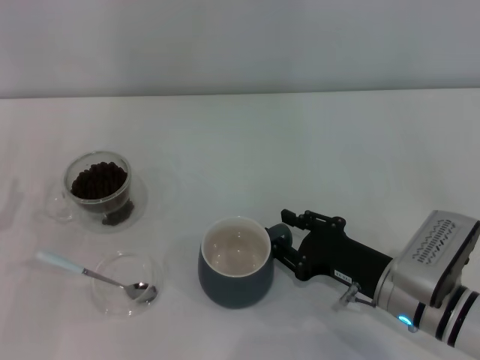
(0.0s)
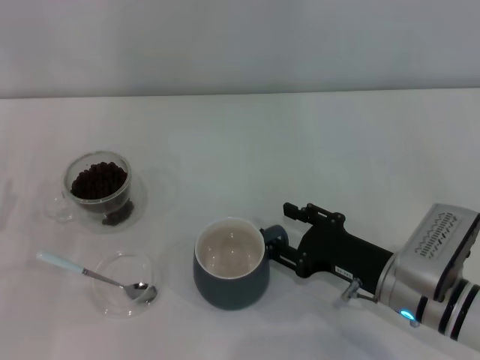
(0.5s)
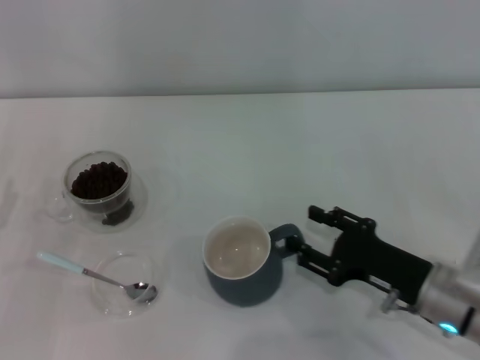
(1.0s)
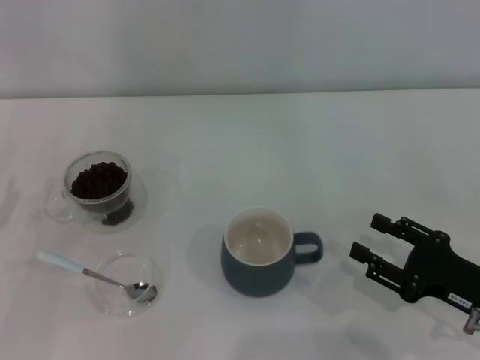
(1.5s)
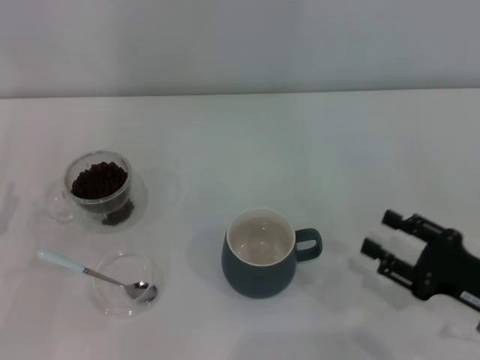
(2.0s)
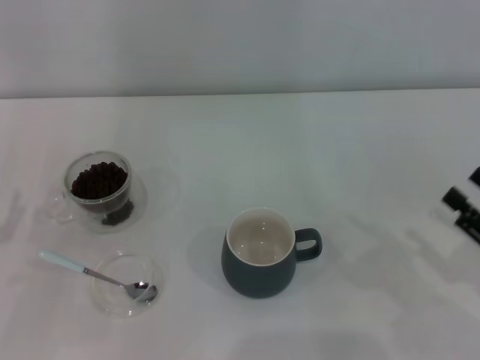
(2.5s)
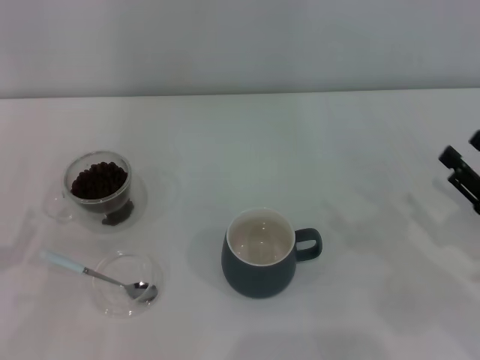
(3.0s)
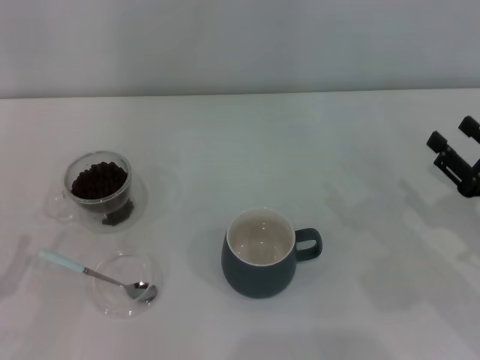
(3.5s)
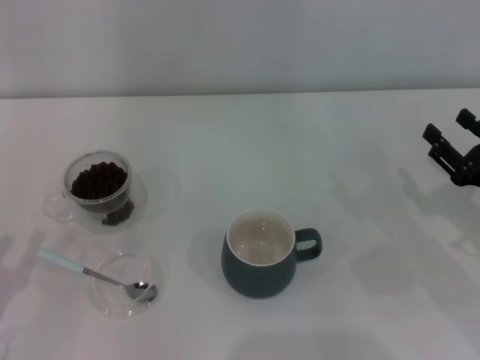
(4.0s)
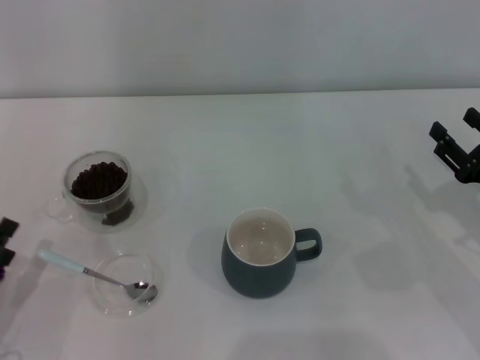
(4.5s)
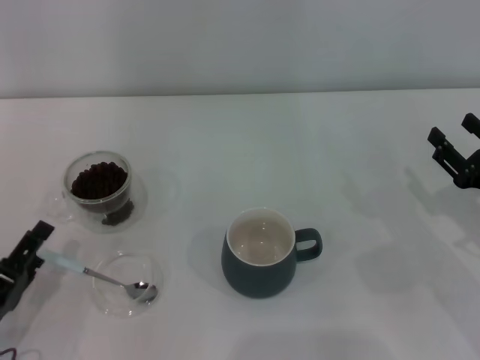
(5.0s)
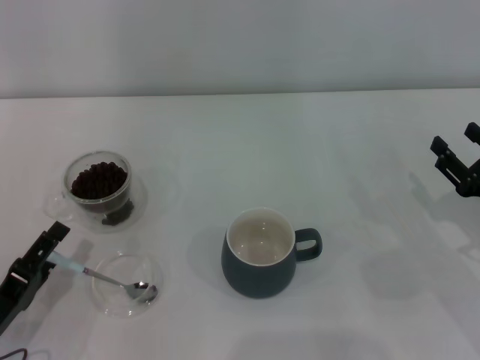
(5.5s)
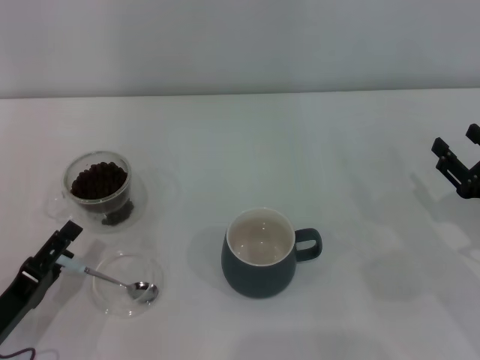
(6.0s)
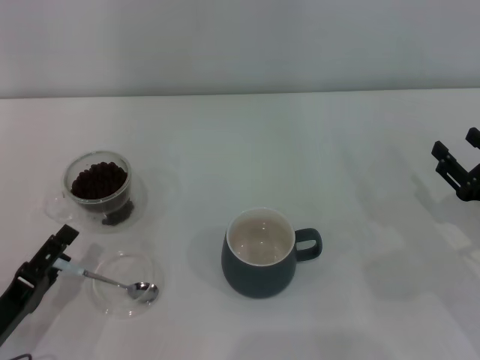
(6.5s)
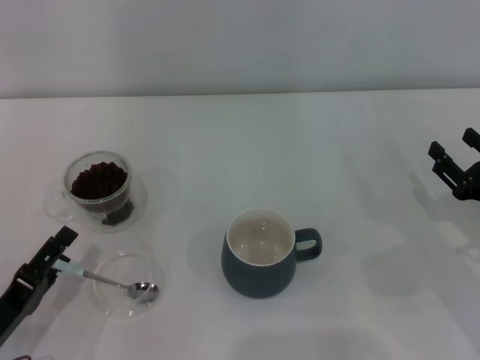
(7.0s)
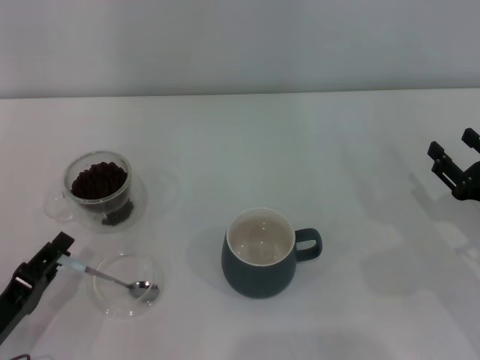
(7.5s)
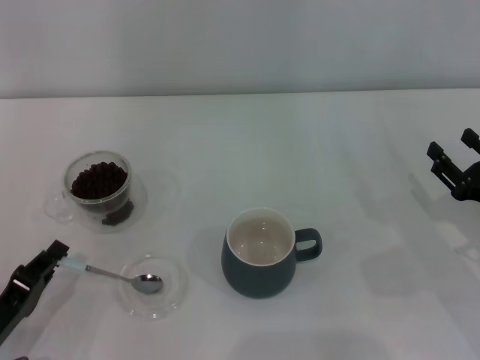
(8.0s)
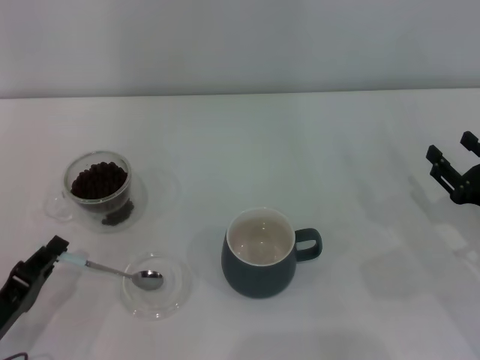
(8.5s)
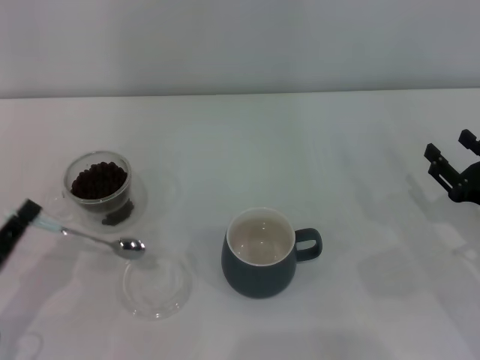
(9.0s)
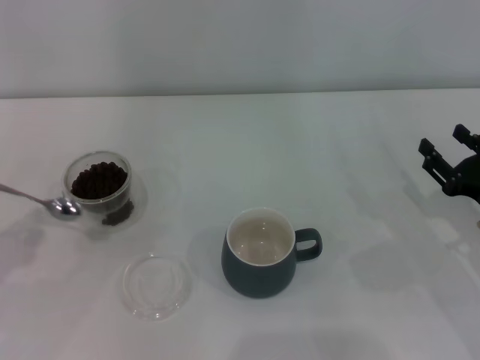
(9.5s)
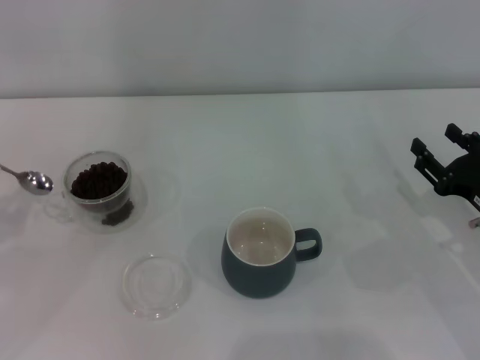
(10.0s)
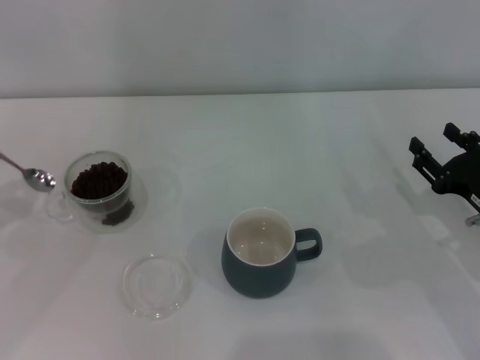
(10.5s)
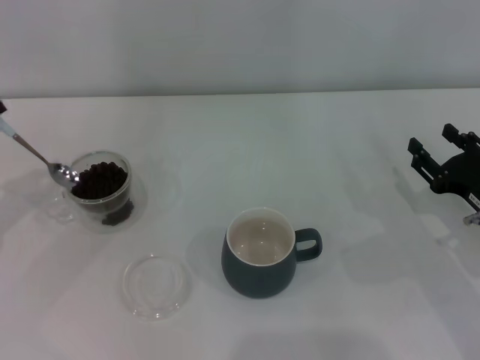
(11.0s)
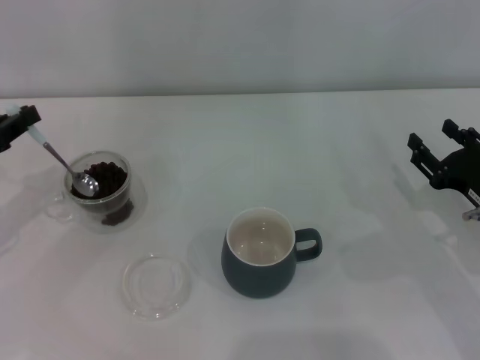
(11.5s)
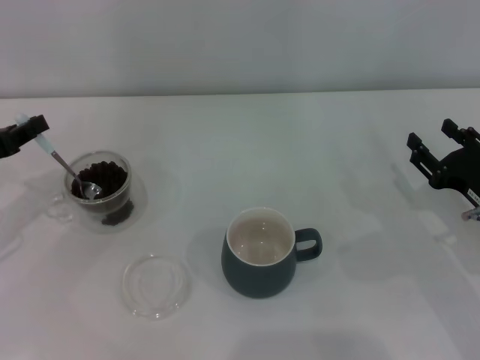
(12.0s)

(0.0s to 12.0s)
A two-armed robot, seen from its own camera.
Task of the whole recording: Use a blue spoon to take out the coffee beans from the glass and pour them into the gray cup.
Step, 2.0s - 8.5s: Pick up the spoon with the right gripper.
0.0s - 2.0s: The right gripper moves to the right and backward, roughly 10 cm, and opens up.
2.0s - 4.0s: The right gripper heads forward, covering approximately 5 cm.
4.0s - 6.0s: The left gripper shifts by approximately 5 cm.
6.0s - 8.0s: The left gripper closes its fingers.
8.0s - 10.0s: The left gripper moves upward, to the left and forward, approximately 15 cm.
10.0s - 12.0s: The left gripper goes some 10 cm forward.

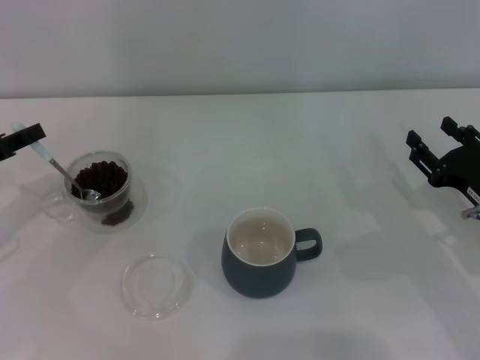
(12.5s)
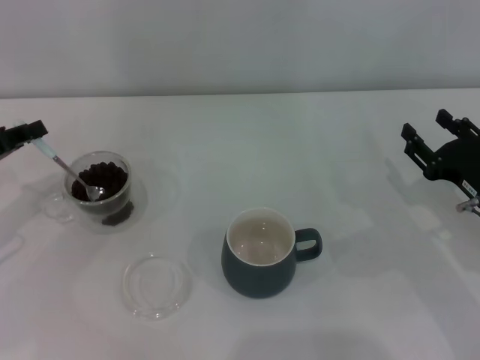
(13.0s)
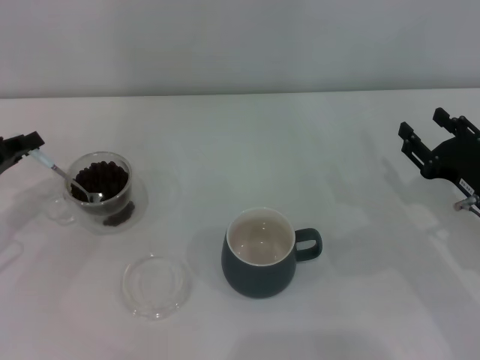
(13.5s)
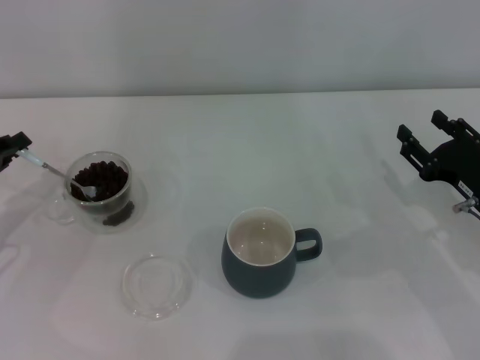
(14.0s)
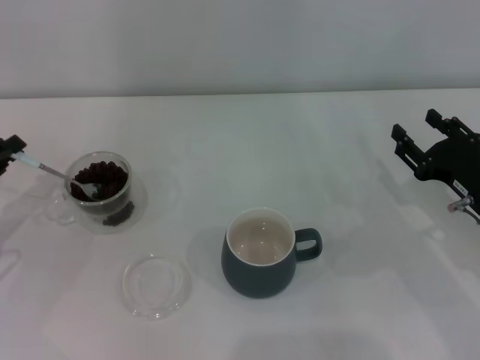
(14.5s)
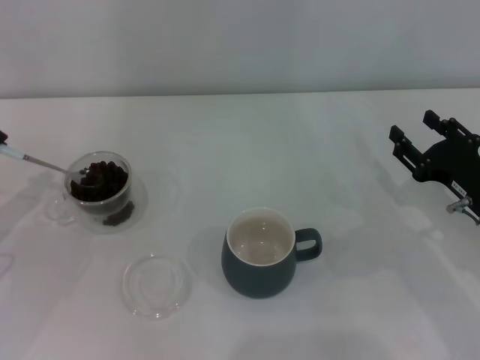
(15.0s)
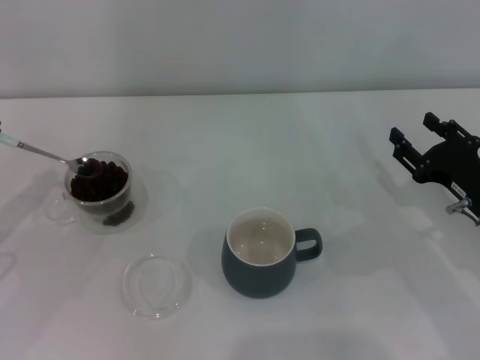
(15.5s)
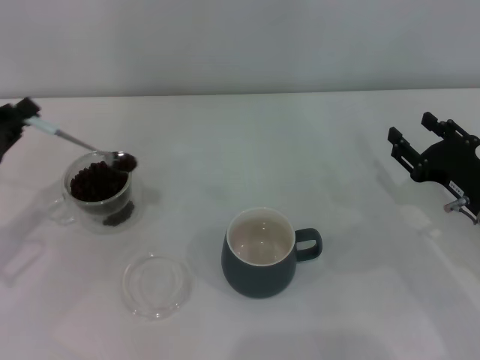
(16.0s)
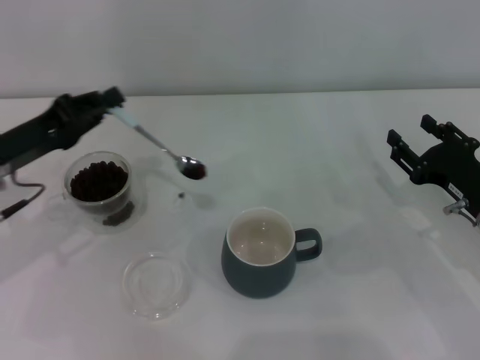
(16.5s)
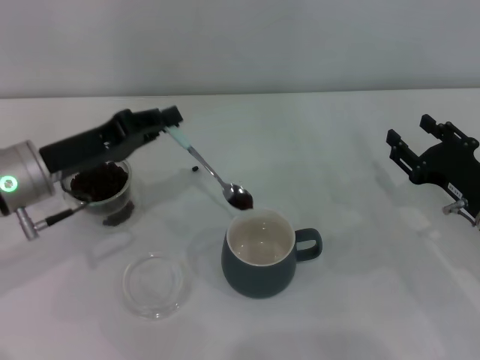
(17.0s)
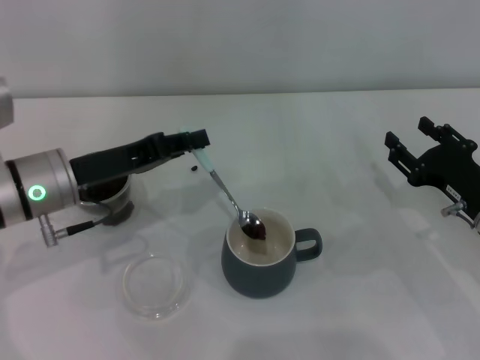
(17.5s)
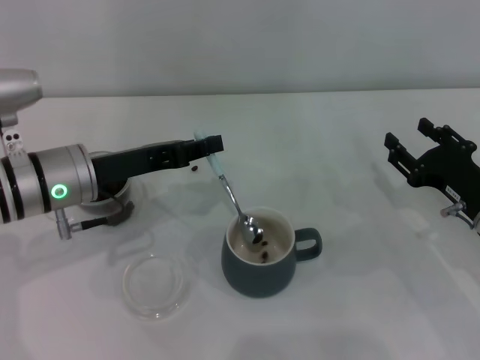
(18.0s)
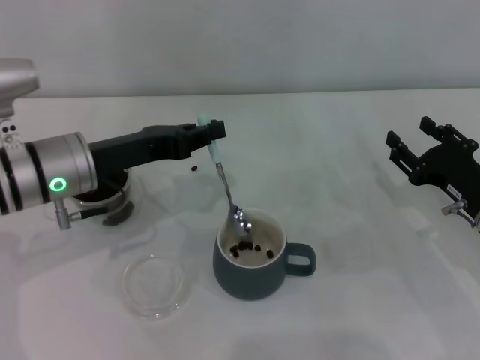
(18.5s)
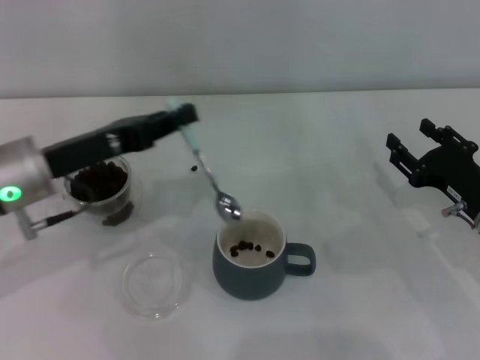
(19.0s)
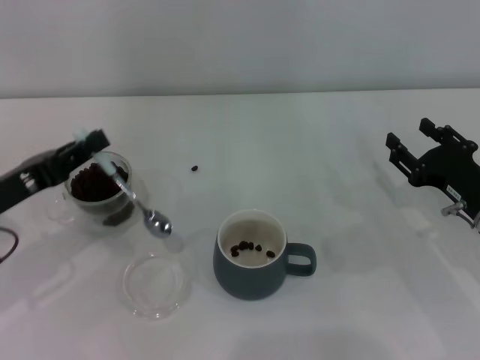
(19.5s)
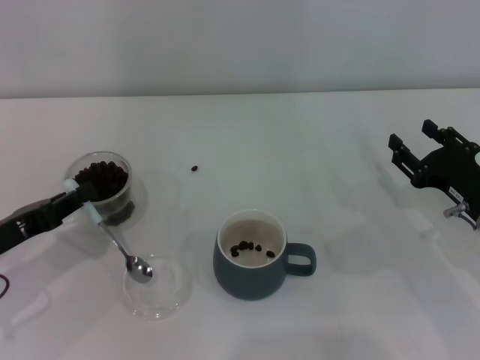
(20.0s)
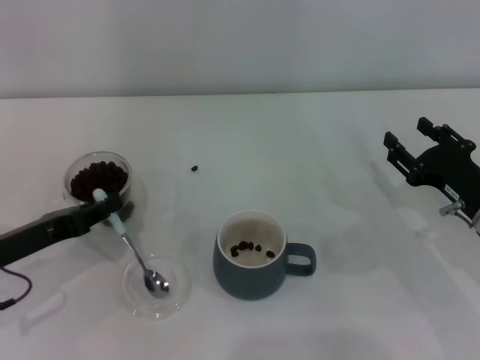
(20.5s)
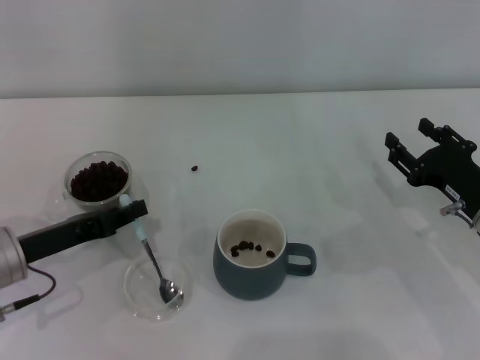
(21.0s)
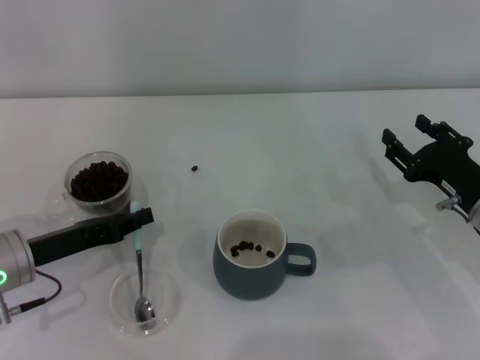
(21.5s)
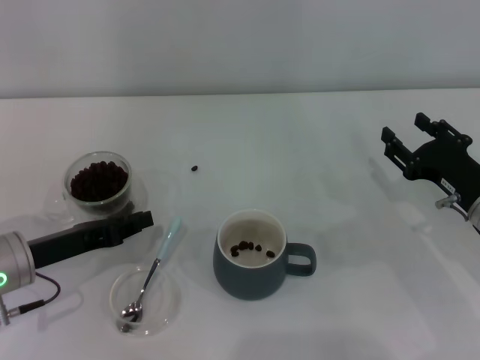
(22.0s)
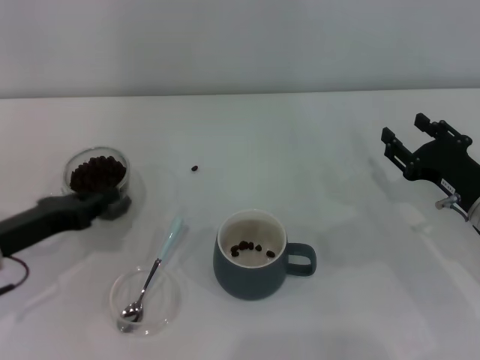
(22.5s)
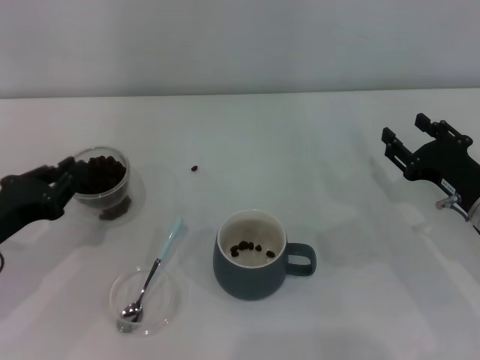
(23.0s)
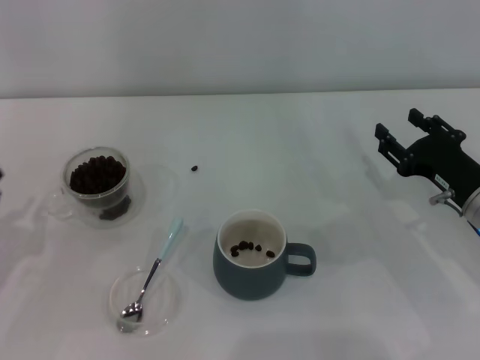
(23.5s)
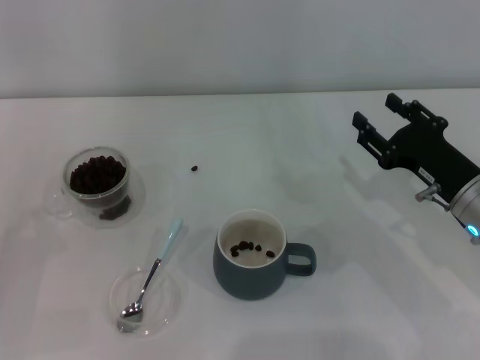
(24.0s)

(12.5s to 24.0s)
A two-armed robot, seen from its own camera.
Task of the whole recording: Use a blue spoon to take out the coffee beans from the glass and pour them into the gray cup.
Step, 19.5s - 22.0s: Place the spoon back in its original place with the right gripper.
14.5s - 16.5s: The left gripper heads to the right, covering roughly 10 cm.
16.5s - 18.5s: The left gripper moves to the right, roughly 10 cm.
18.5s - 20.0s: The left gripper goes approximately 15 cm to the left, backward and downward.
20.0s - 22.0s: The left gripper ends up approximately 5 cm from where it was.
22.0s - 24.0s: The left gripper shifts about 10 cm to the left and backward.
